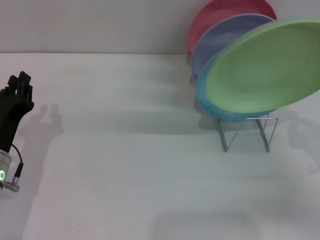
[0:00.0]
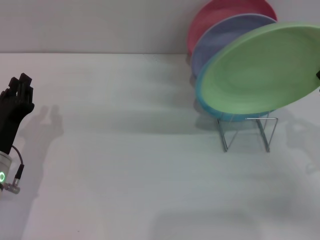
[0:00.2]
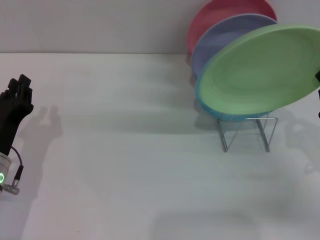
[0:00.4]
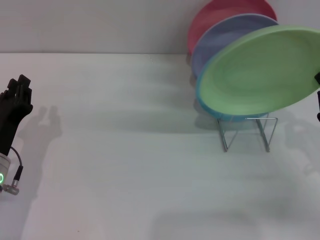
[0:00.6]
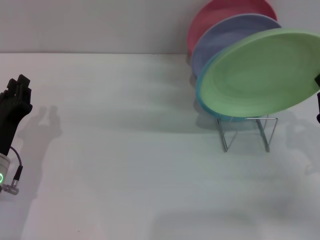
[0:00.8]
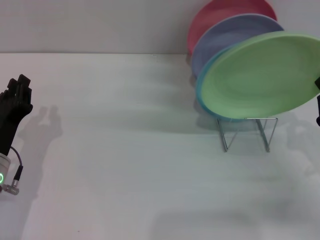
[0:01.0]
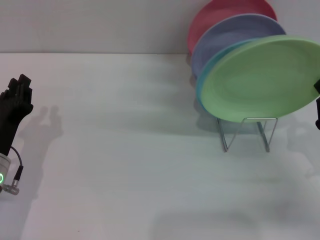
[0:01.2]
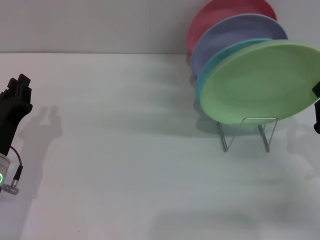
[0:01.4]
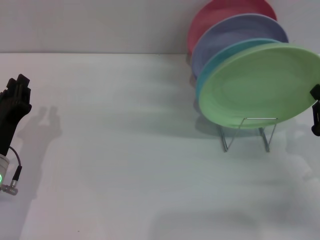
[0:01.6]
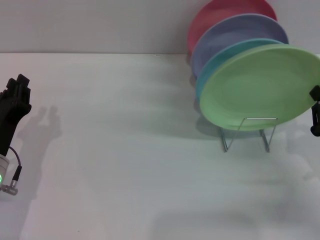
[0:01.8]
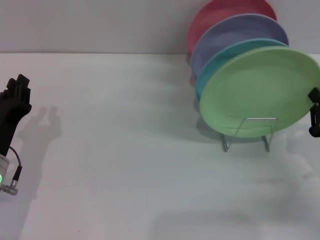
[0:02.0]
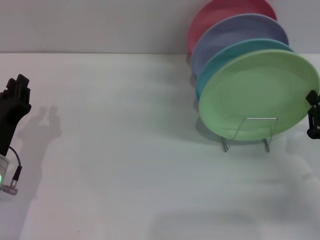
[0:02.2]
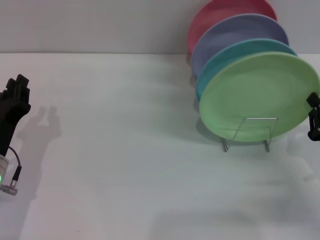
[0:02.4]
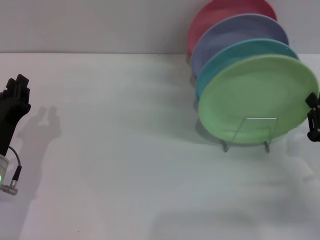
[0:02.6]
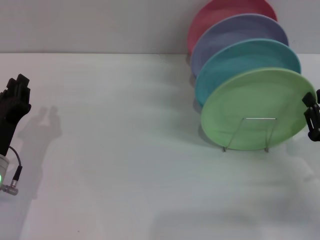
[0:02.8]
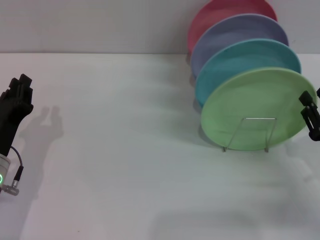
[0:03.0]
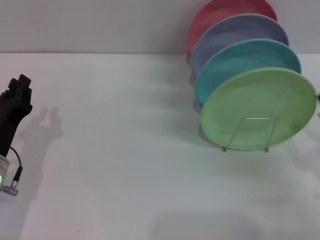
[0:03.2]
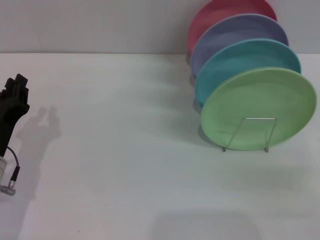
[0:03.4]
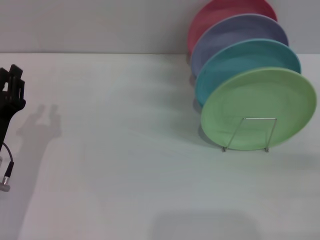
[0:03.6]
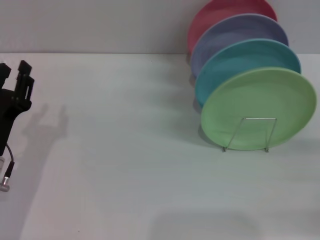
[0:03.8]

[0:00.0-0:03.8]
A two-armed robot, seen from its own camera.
Task of the whole recording: Grip the plate with one hand, pass it to the other, then set it on the shelf.
Step, 0.0 to 3.0 s: Place the plate on the shelf with the right gripper.
0.0 to 2.6 s: The grippers stay close to where they were, moving slightly.
2.6 to 3.8 s: The right gripper travels to the right by some 10 cm, and opens its fingers.

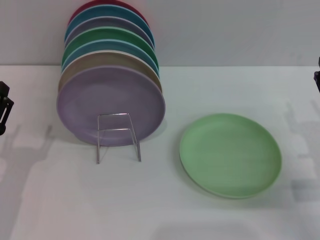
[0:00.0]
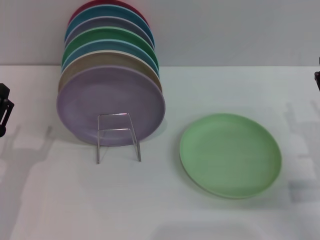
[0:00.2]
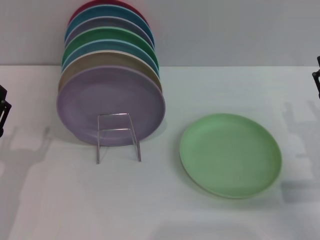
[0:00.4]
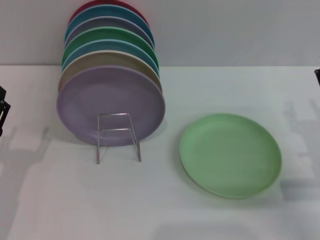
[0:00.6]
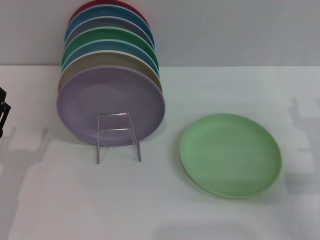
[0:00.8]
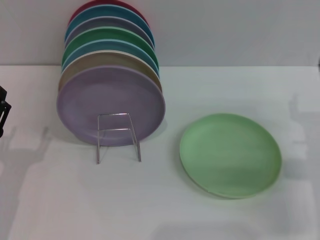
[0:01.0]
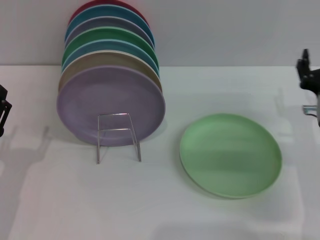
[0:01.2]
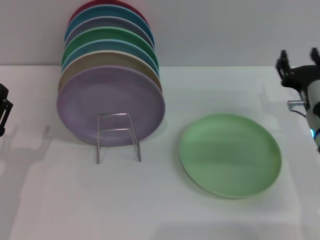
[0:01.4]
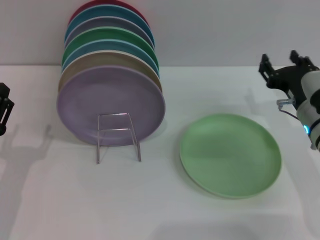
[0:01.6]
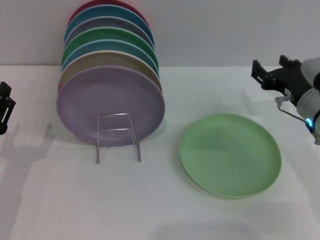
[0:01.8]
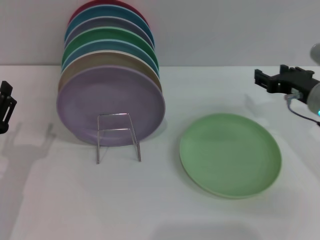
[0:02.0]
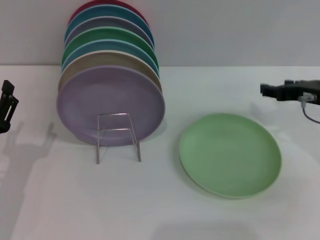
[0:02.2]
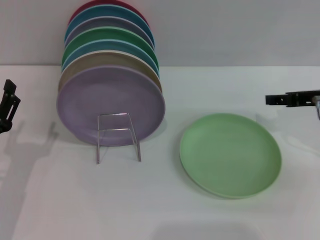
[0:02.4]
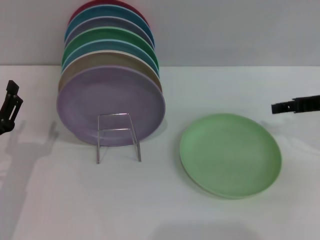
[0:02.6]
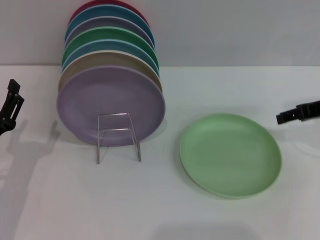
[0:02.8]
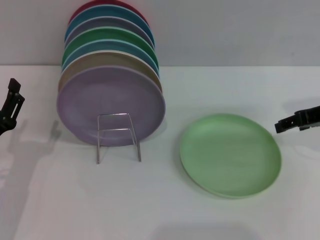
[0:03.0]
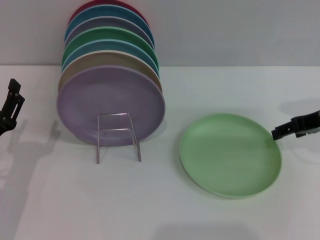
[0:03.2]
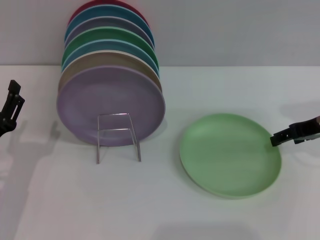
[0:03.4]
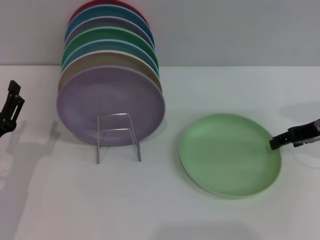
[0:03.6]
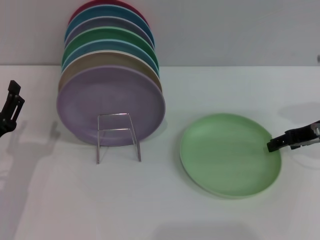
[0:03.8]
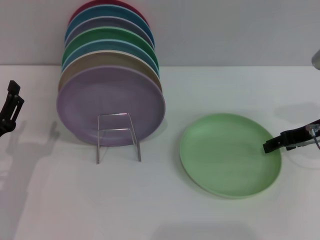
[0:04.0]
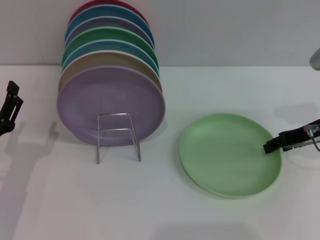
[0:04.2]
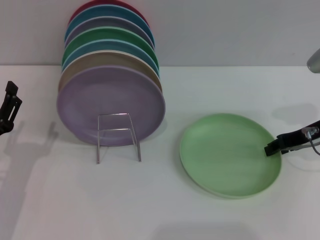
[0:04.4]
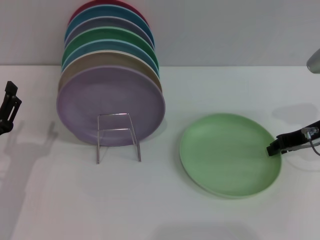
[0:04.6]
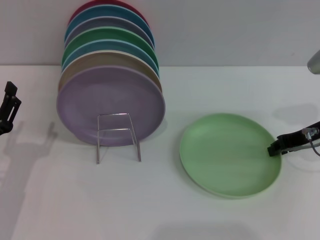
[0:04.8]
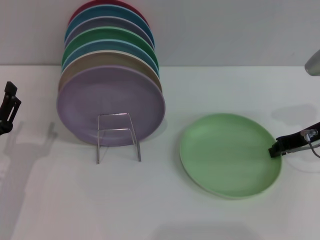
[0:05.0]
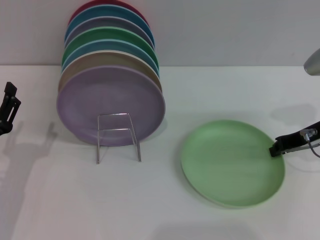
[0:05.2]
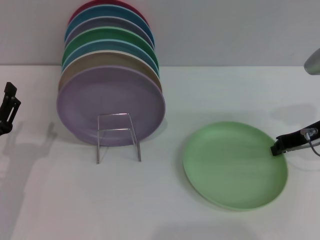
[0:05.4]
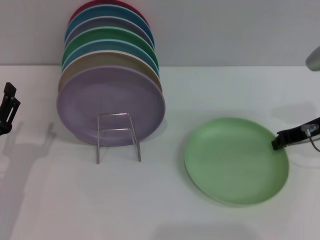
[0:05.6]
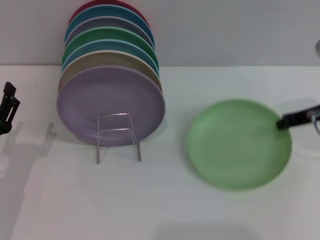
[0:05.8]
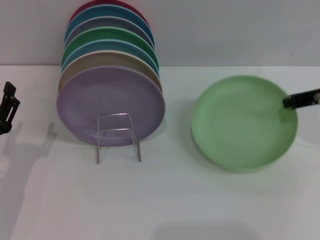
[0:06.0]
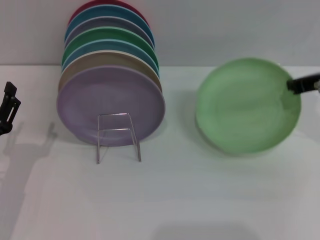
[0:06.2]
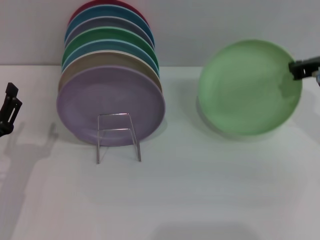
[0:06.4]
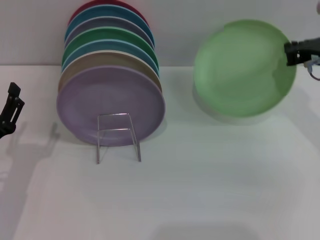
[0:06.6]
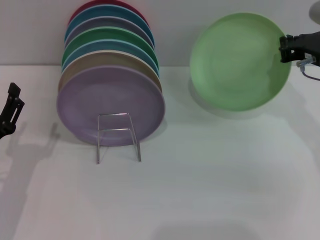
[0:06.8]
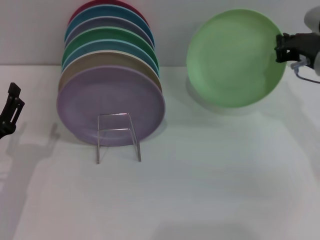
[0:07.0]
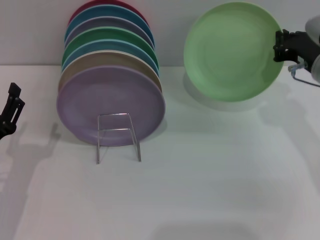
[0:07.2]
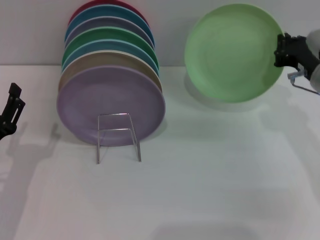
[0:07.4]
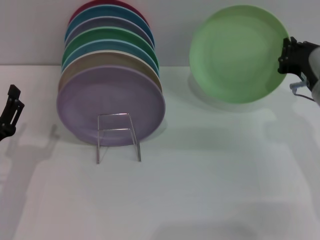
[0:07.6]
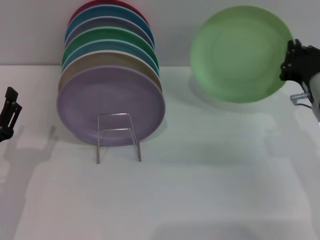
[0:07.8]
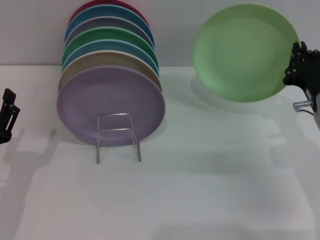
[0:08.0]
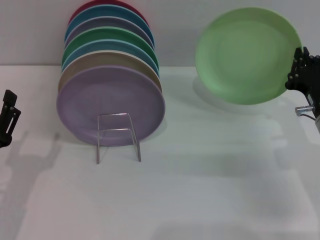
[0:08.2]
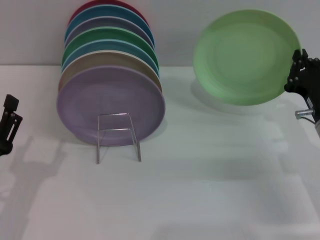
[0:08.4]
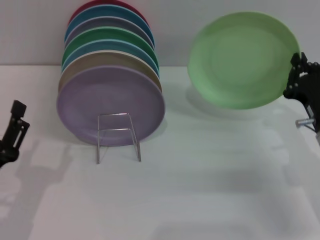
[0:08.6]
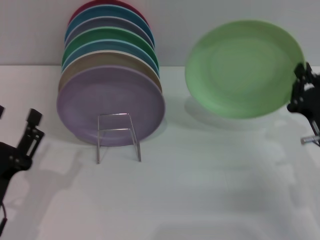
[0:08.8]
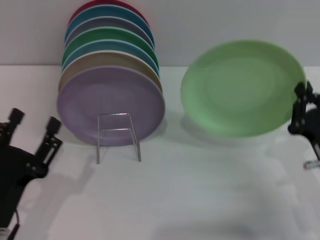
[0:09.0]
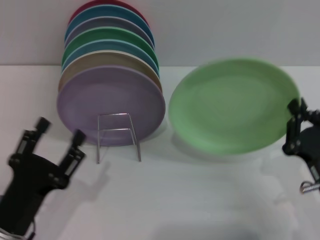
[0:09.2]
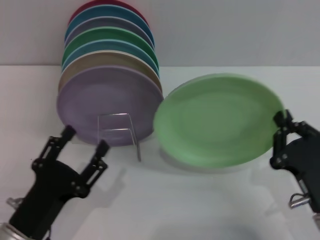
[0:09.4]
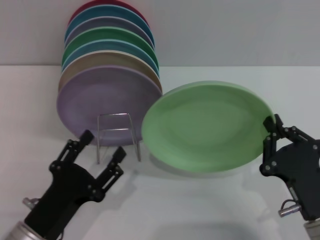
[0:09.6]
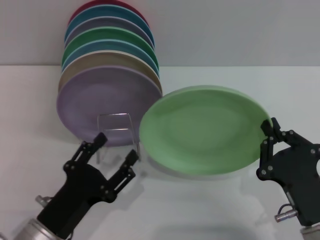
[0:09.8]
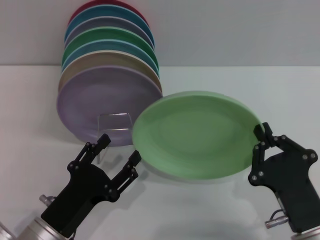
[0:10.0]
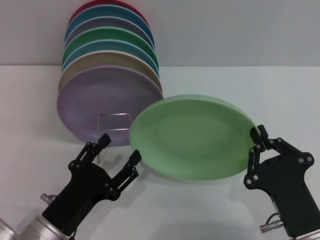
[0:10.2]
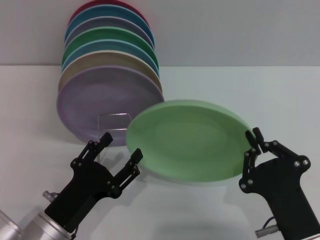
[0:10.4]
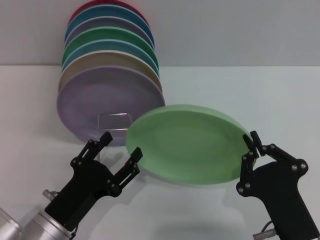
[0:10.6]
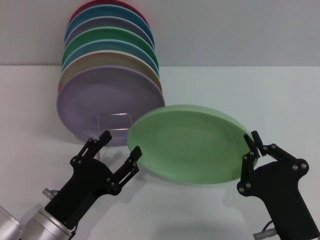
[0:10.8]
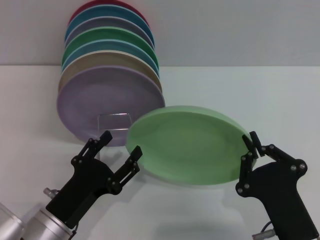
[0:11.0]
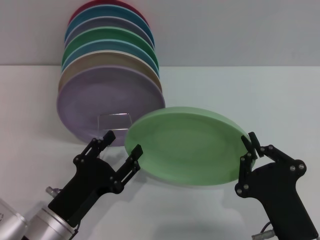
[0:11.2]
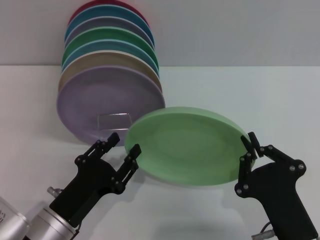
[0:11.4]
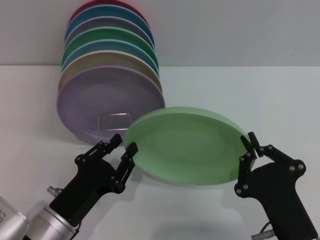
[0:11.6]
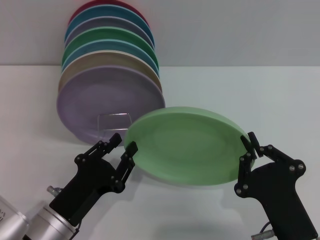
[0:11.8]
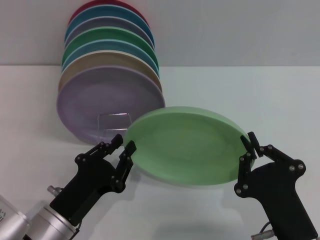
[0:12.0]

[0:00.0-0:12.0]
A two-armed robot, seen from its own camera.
Task of the whole recording: Grip the plate with one hand, pass it to the other, then set it on the shelf.
Step, 0.0 to 6.0 s: Pick up the plate with the right gripper.
0.0 to 1.6 s: The right gripper moves forward and to the left, about 10 cm.
1.6 to 3.0 s: The right gripper heads upward and to the right, covering roughly 10 cm.
3.0 to 4.4 s: There are only small adjustments of the grippers.
4.4 to 6.0 s: The right gripper closes.
6.0 to 7.6 s: The right gripper travels downward by about 5 cm.
7.6 to 9.0 s: The right gripper shifts about 15 cm backward and downward; the left gripper goes roughly 5 cm backward.
9.0 to 10.4 s: The left gripper moves to the right, approximately 5 cm, while the right gripper travels backward and to the left by about 10 cm.
10.4 to 12.0 s: The left gripper closes up.

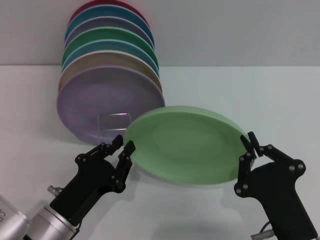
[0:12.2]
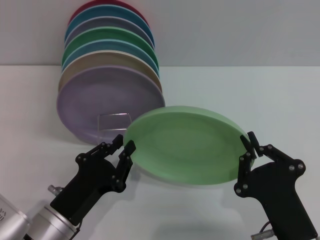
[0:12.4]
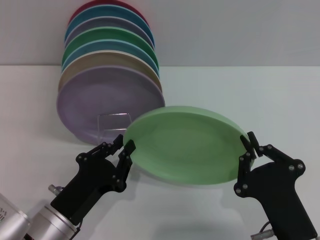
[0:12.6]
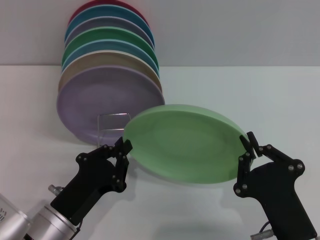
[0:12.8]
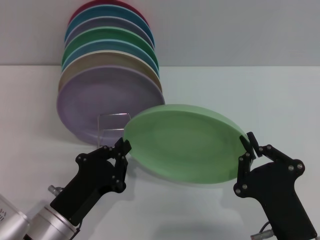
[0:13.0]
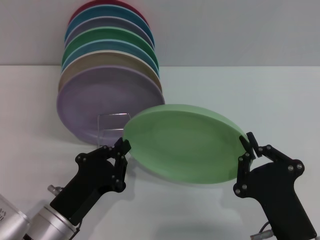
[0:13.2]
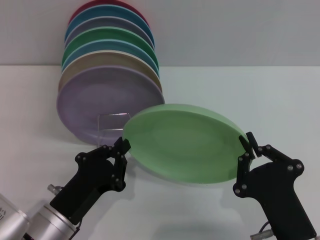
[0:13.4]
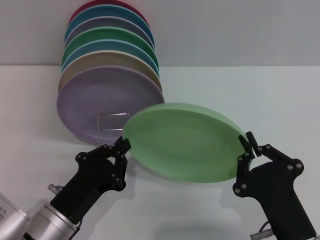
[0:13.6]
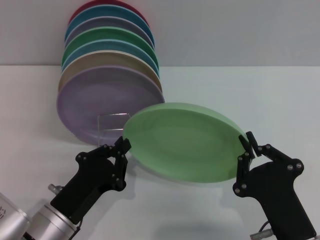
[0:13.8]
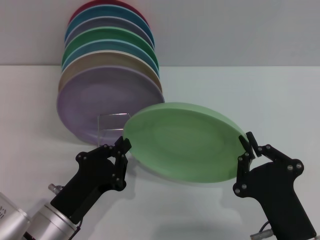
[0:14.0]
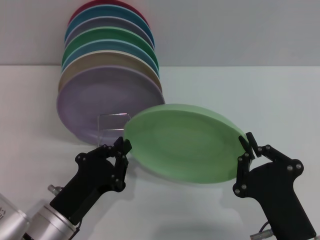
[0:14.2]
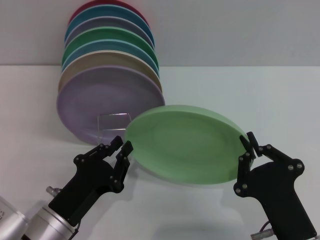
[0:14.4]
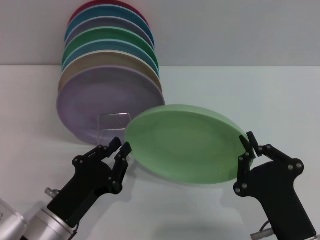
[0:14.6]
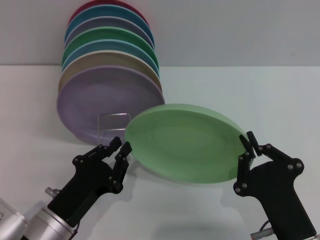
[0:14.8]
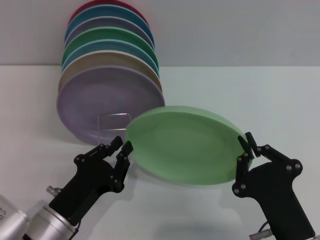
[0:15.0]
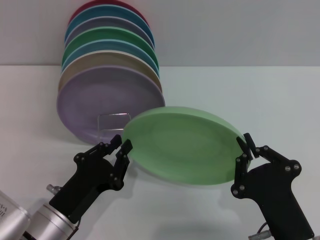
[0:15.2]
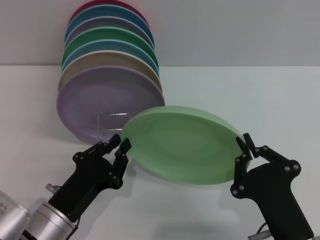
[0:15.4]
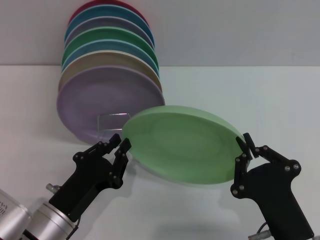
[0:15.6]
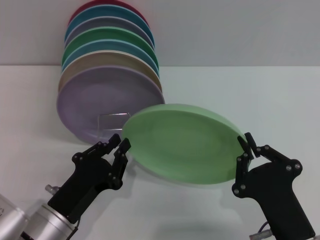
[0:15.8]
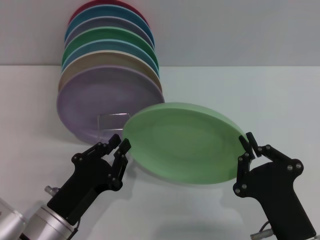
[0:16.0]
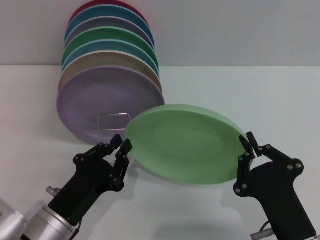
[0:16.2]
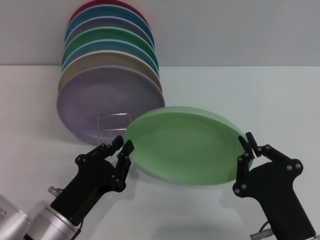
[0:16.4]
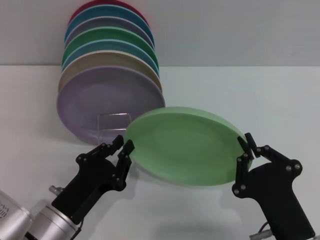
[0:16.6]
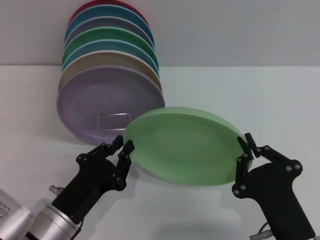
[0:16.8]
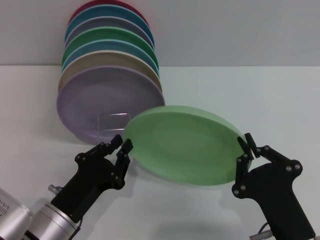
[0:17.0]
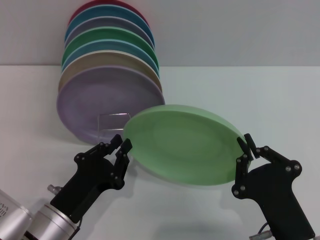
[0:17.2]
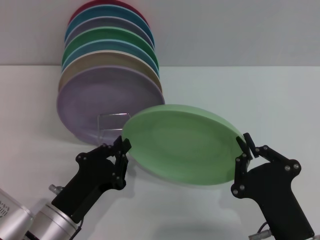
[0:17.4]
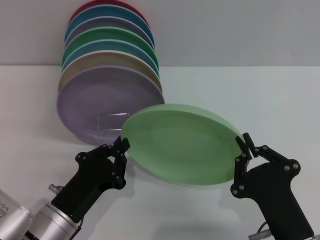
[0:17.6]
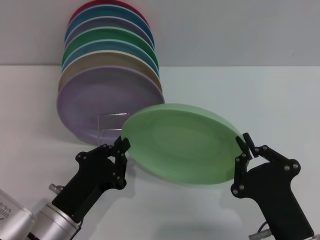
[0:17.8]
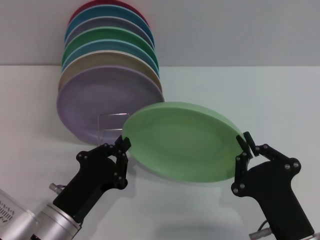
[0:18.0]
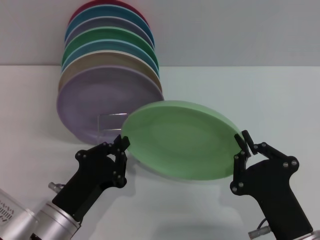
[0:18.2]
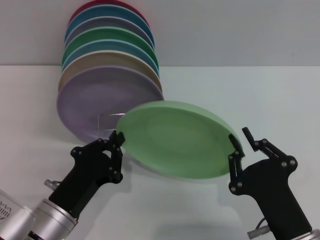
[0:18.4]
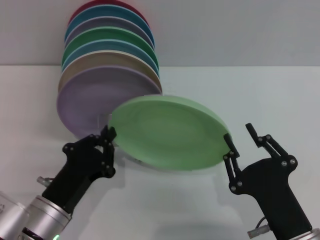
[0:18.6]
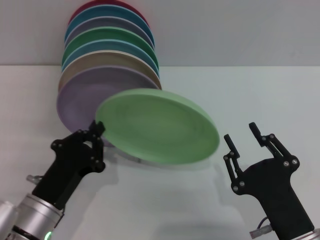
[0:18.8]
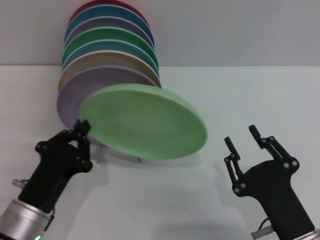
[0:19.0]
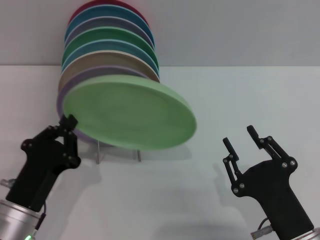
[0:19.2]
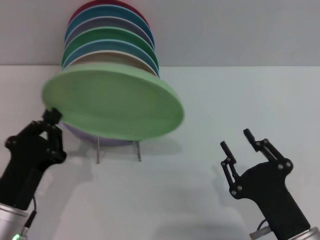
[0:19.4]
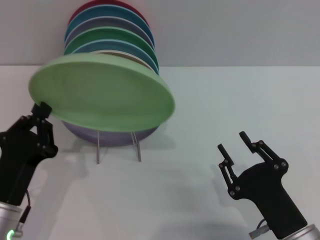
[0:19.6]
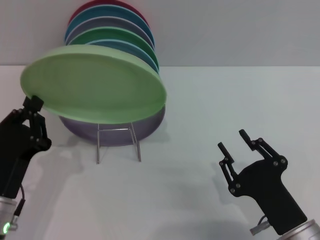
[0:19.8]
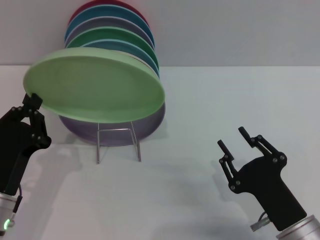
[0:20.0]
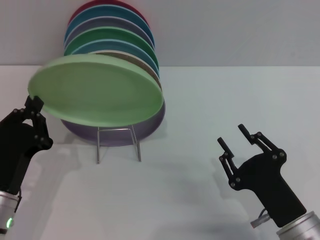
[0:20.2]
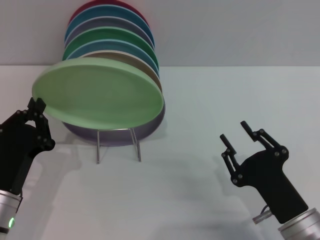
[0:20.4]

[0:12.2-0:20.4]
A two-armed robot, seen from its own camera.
Task of the whole recording: Grip the plate with one hand, pass it to the other, then set it on the shelf.
Step, 12.2 to 19.2 s: Pass the plate from the right gripper to the left gripper.
12.2 to 17.2 s: Both grippers stay about where they are.
17.2 to 18.8 s: The right gripper opens.
